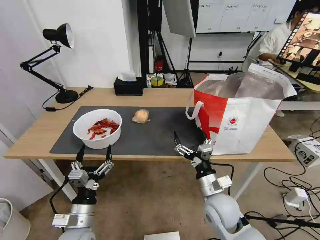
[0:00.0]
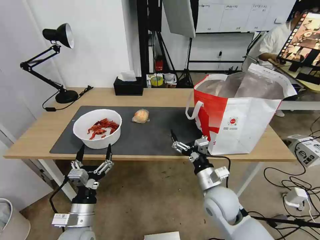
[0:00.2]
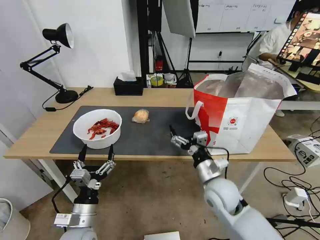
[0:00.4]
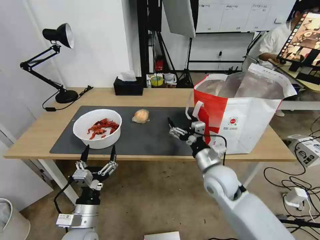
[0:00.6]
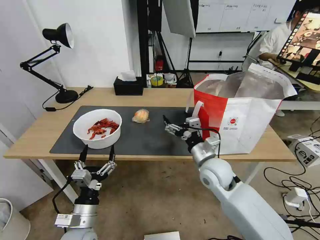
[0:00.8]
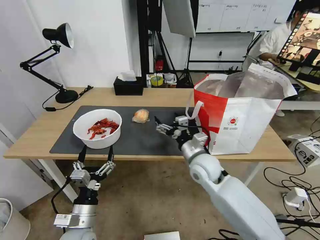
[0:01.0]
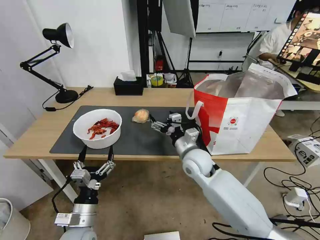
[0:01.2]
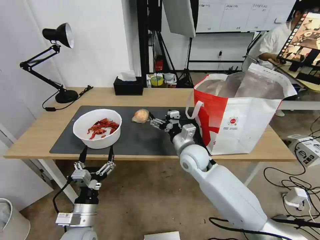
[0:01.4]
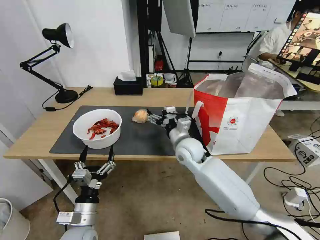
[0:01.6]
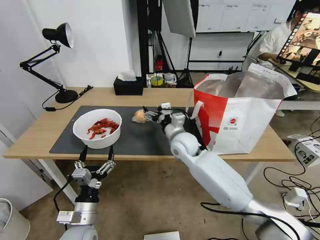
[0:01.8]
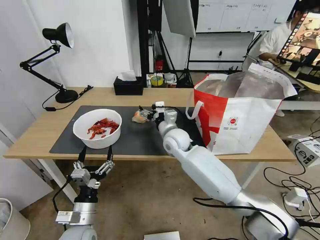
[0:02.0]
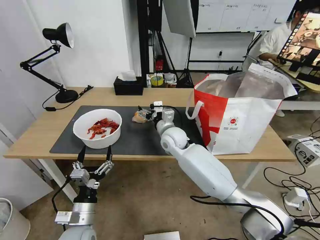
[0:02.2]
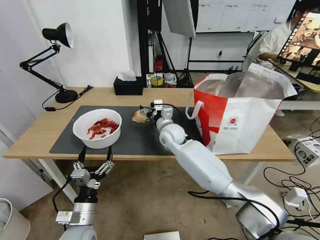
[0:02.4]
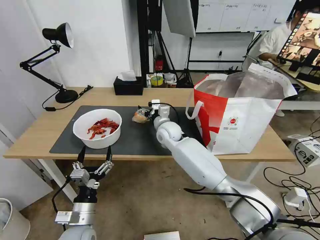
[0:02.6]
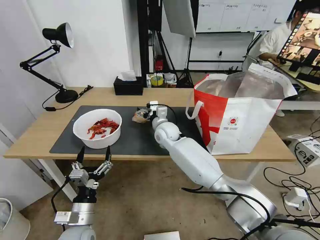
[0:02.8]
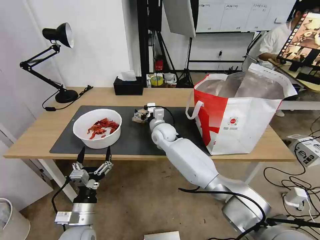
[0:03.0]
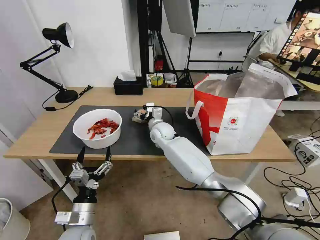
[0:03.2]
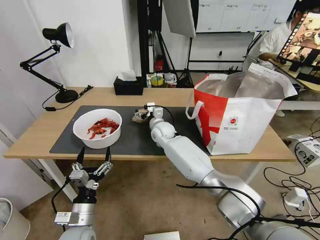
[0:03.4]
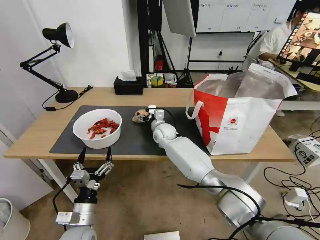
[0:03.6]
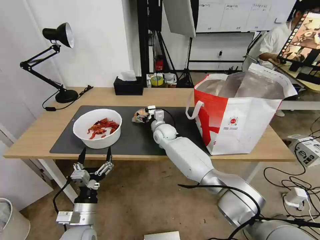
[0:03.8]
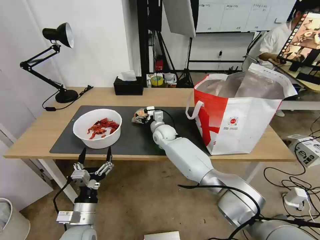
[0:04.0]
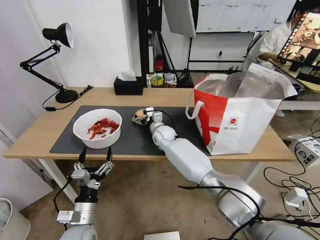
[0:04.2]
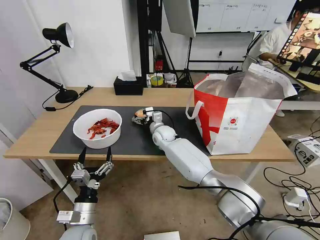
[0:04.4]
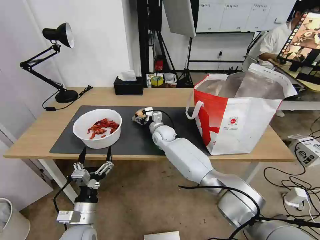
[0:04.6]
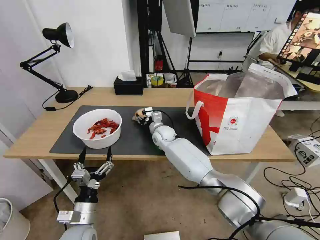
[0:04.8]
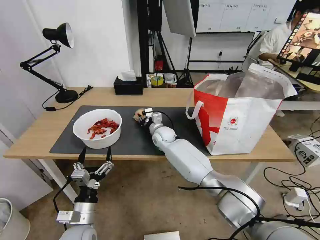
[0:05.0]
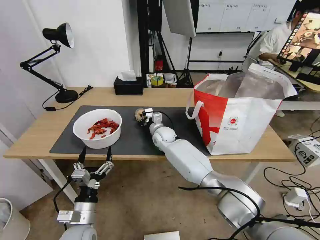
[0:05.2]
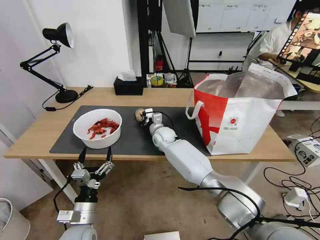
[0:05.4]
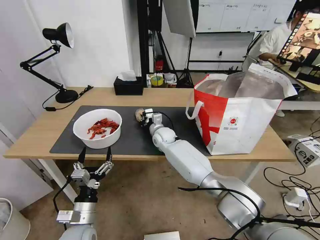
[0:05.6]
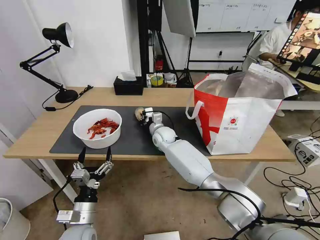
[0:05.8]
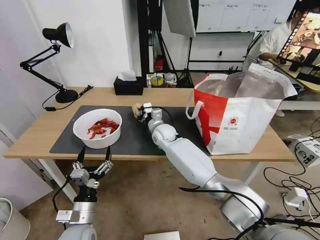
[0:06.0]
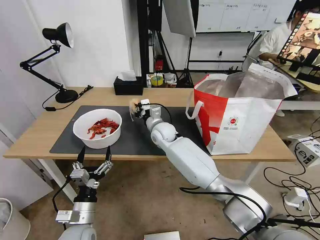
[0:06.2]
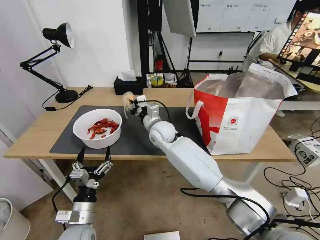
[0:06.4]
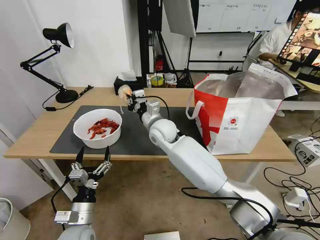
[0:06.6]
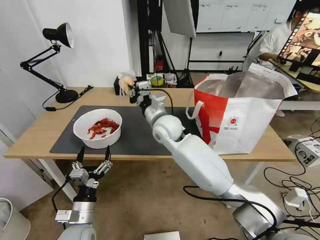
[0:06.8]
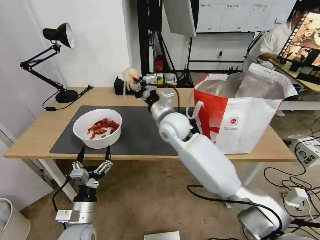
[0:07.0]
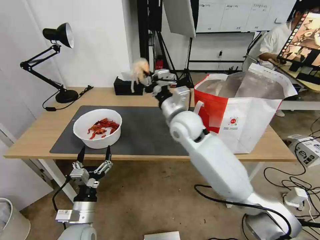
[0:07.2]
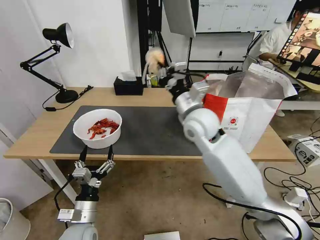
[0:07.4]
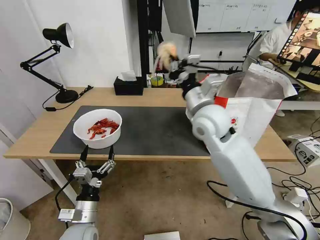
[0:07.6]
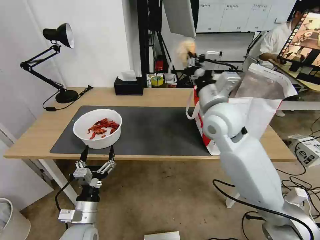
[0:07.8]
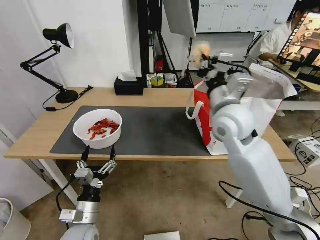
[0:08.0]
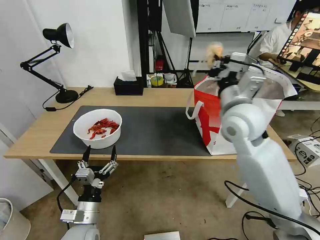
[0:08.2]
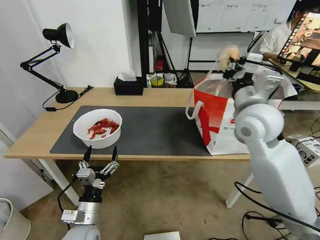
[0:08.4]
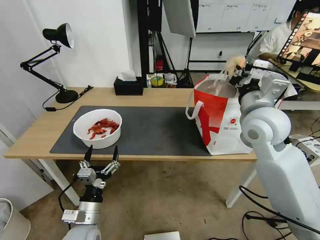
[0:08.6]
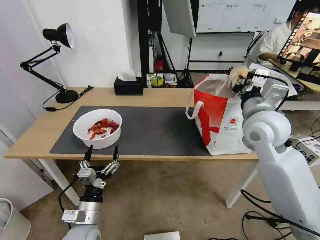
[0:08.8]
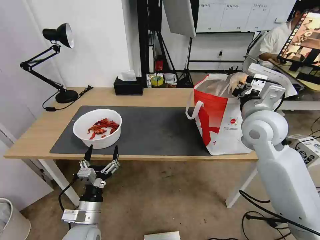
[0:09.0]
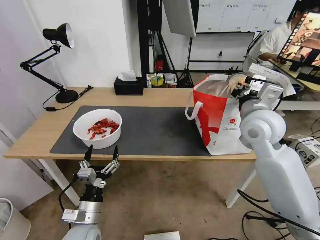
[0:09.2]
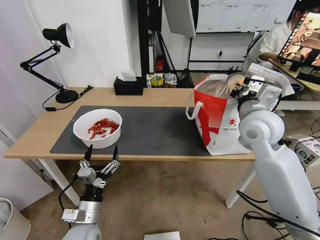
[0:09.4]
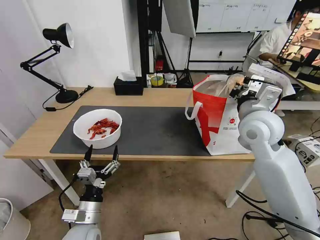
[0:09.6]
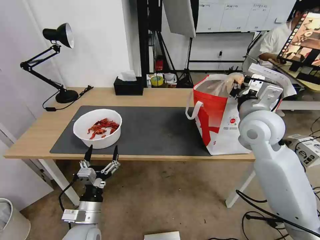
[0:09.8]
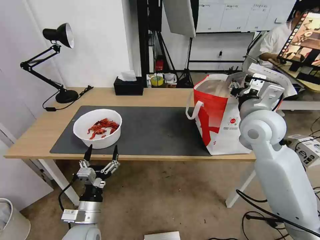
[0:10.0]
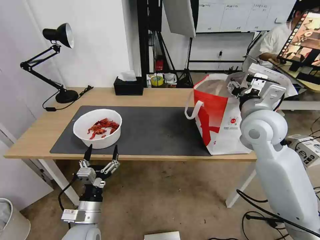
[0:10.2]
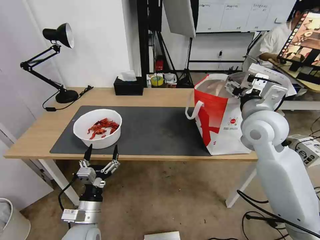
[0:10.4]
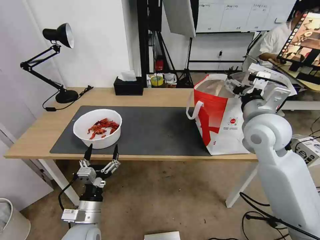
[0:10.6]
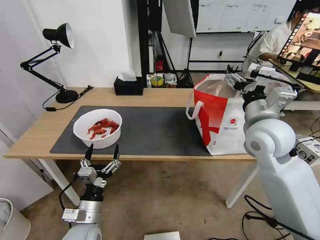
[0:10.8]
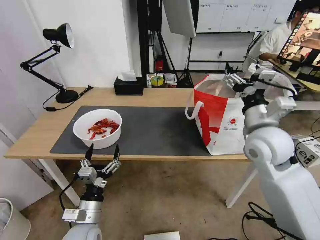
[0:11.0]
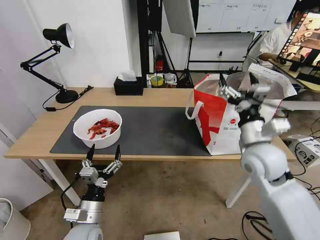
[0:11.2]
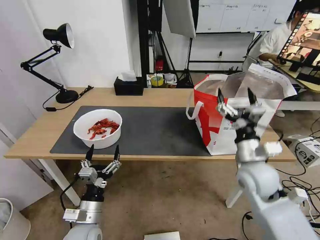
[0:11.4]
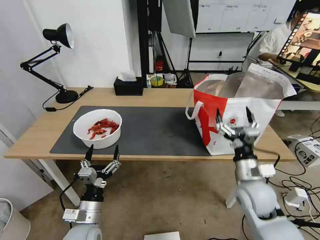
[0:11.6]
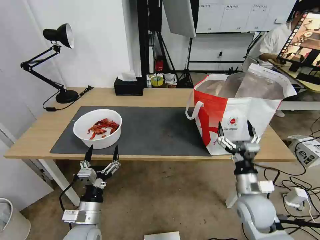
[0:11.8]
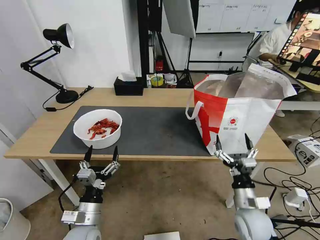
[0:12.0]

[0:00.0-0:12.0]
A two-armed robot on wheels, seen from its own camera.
Task of the whole recording: Pick up the trash from the table and place it into the takeout bag.
0:00.0 to 0:01.6: The right gripper moves forward and to the left, about 20 cm.
0:01.6 to 0:03.0: The right gripper heads forward and to the left, covering approximately 15 cm.
0:03.0 to 0:04.4: The grippers stay close to where they were, moving slightly.
0:04.4 to 0:06.0: The right gripper closes.
0:06.0 to 0:07.6: The right gripper travels upward, backward and to the right by approximately 25 cm.
0:07.6 to 0:09.0: The right gripper shifts about 15 cm to the right.
0:09.0 to 0:10.4: The right gripper opens up.
0:10.4 to 0:12.0: The right gripper moves downward and backward, some 30 cm.

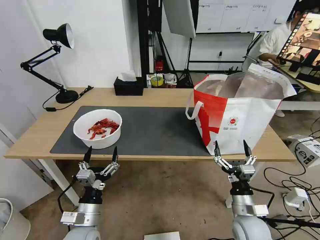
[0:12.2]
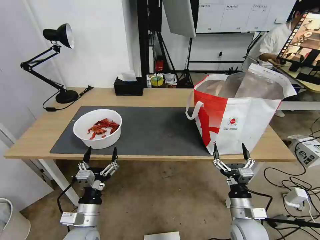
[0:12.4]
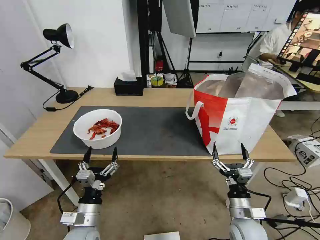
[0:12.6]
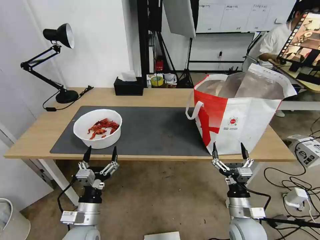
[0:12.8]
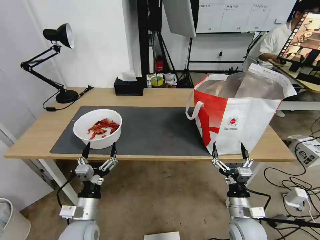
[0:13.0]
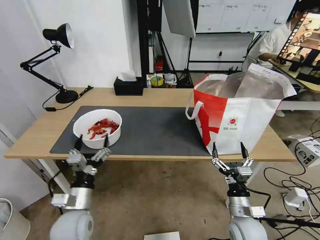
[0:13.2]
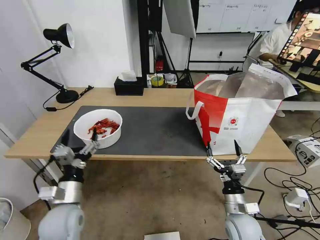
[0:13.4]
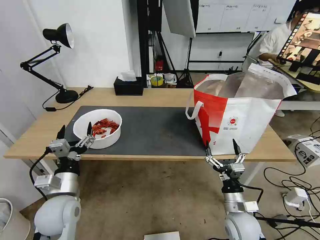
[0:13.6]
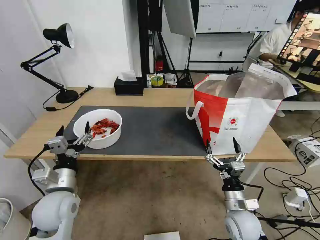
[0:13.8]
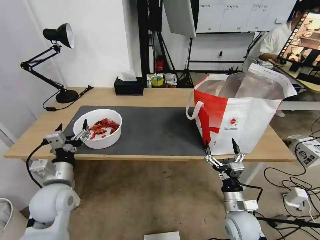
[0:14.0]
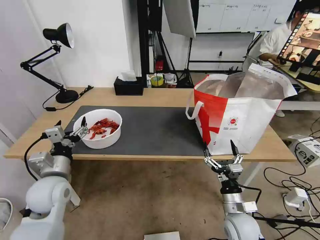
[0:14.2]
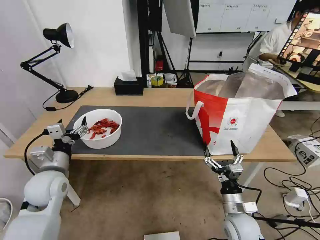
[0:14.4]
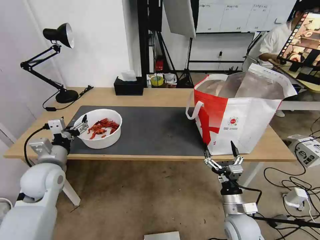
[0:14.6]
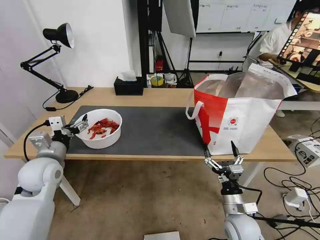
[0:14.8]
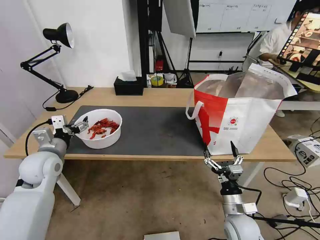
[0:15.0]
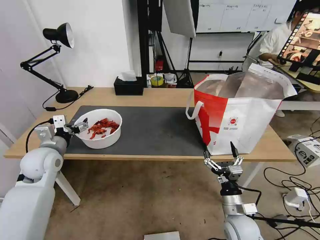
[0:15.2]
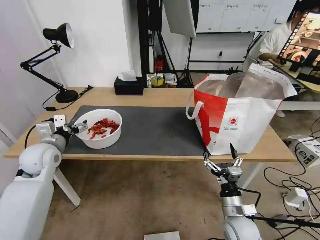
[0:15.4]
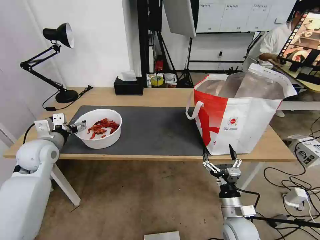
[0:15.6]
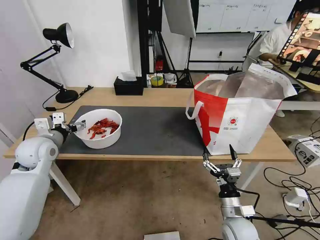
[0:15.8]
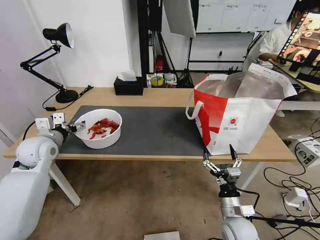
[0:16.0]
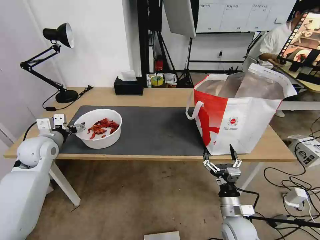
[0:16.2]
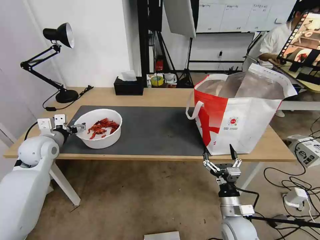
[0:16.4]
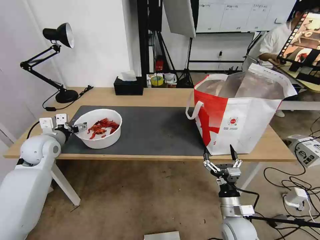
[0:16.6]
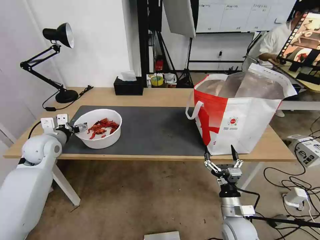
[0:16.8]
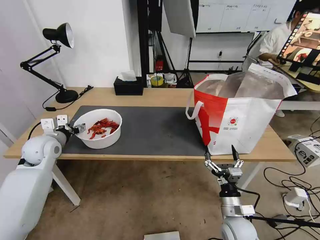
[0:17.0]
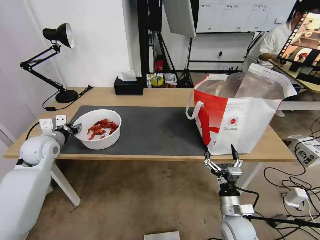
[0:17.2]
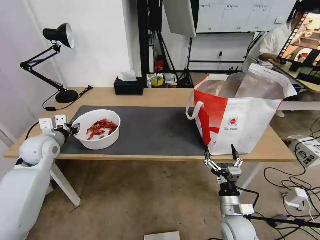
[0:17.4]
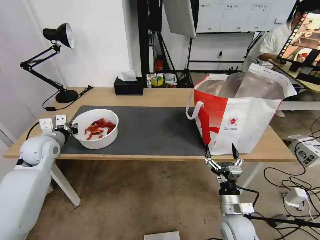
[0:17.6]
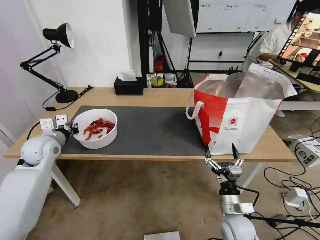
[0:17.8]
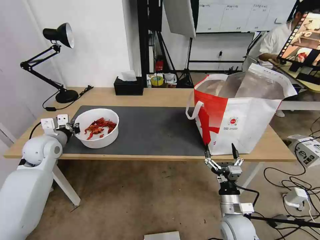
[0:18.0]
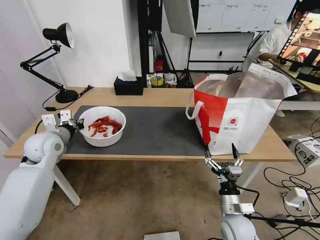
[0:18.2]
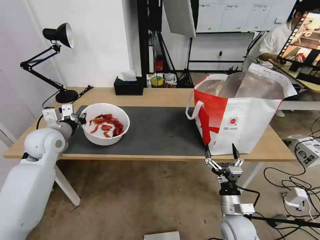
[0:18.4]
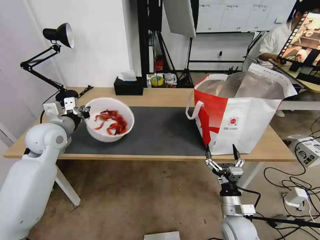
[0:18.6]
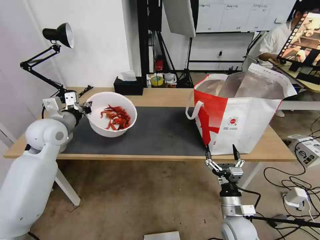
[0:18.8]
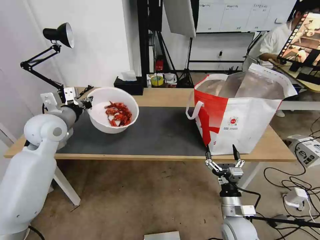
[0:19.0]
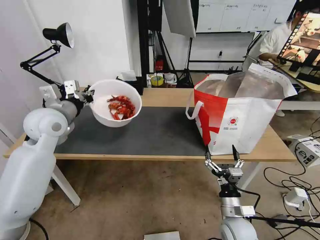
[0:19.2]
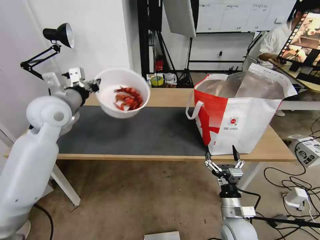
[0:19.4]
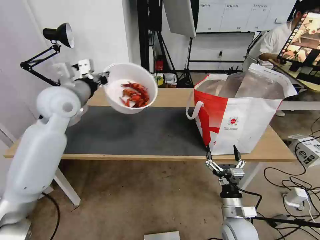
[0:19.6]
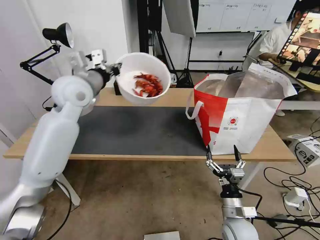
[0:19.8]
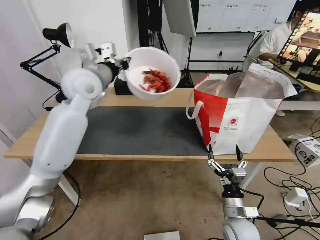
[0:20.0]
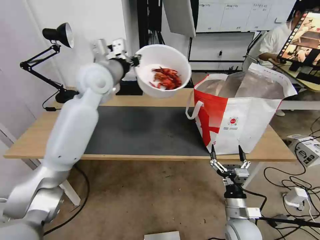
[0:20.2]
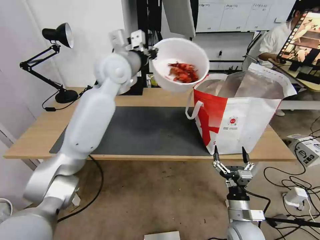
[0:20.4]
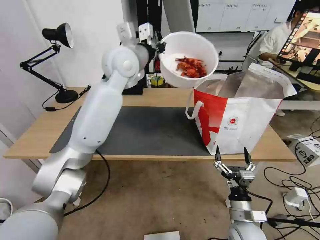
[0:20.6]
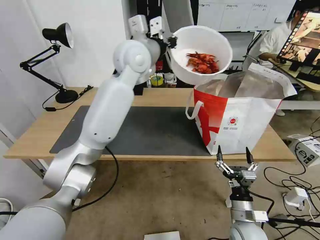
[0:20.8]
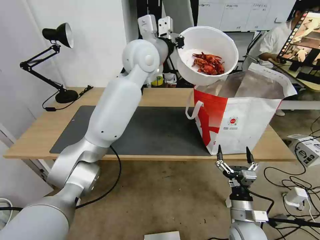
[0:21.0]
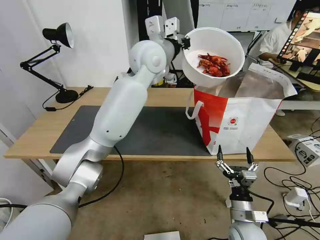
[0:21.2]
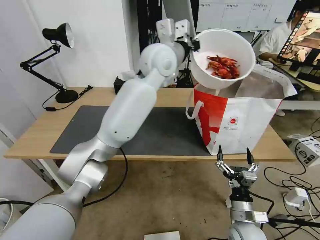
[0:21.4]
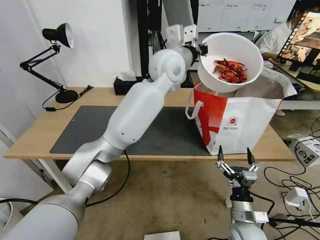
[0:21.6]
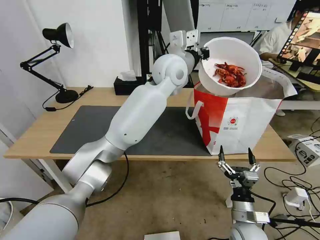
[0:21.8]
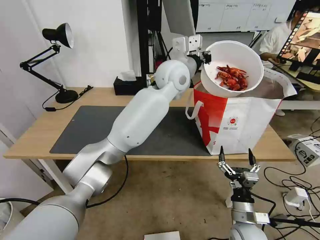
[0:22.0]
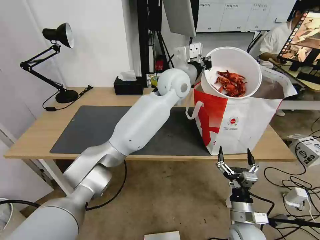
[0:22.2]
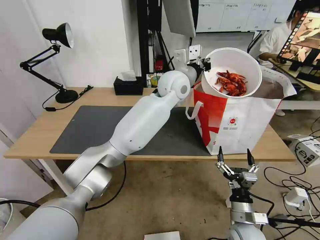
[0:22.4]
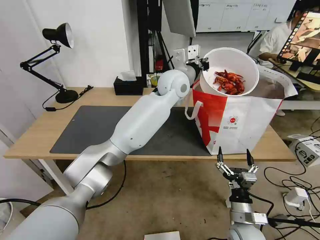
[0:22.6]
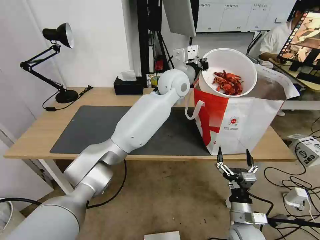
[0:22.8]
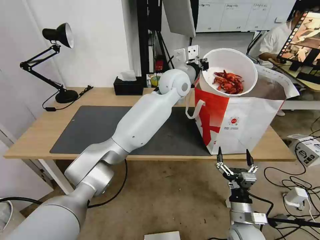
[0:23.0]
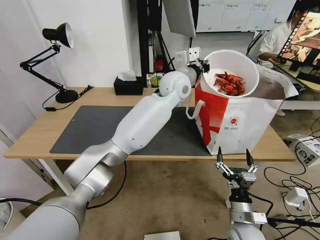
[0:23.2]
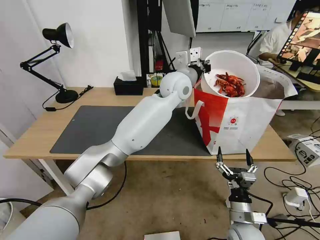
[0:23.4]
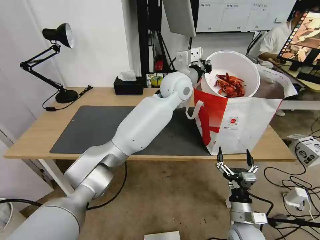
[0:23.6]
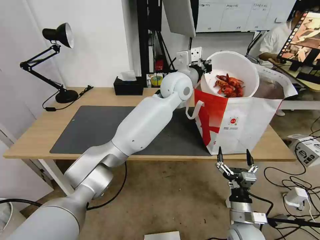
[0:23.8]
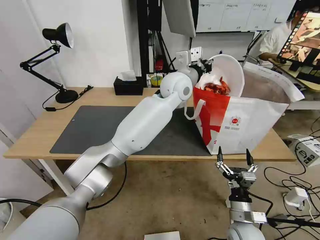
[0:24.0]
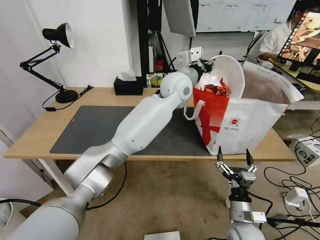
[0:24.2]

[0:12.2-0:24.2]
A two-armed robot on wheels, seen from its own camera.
Task of the whole recording: Pick up the trash from the table and place it into the takeout bag.
0:12.2 to 0:13.8: The left gripper travels upward, forward and to the left by about 10 cm.
0:13.8 to 0:15.2: The left gripper is displaced forward and to the left by roughly 15 cm.
0:15.2 to 0:16.6: The left gripper shifts by some 5 cm.
0:16.6 to 0:18.2: The left gripper closes.
0:18.2 to 0:19.8: The left gripper moves upward and to the right, approximately 20 cm.
0:19.8 to 0:21.2: The left gripper shifts approximately 20 cm to the right.
0:21.2 to 0:22.6: The left gripper heads downward and to the right, covering roughly 10 cm.
0:22.6 to 0:24.2: The left gripper opens its fingers.
